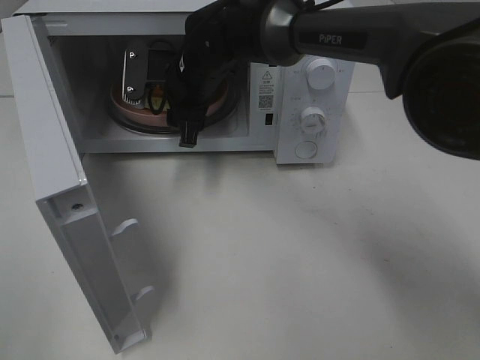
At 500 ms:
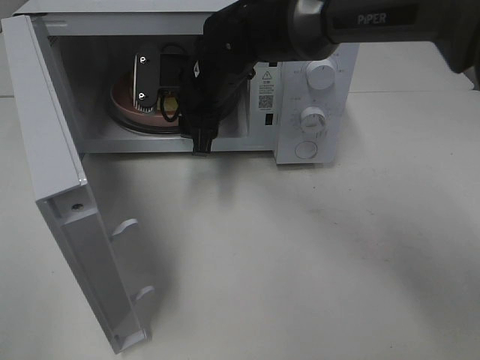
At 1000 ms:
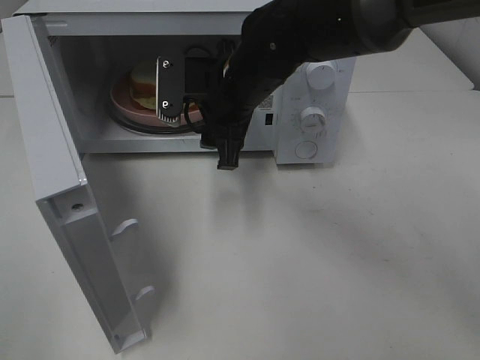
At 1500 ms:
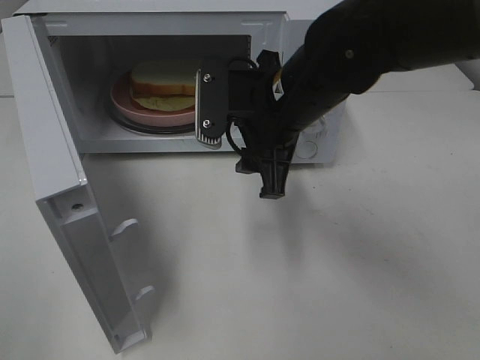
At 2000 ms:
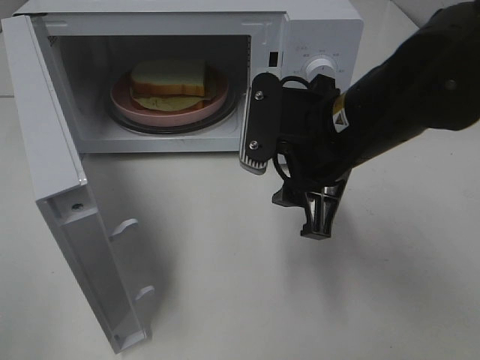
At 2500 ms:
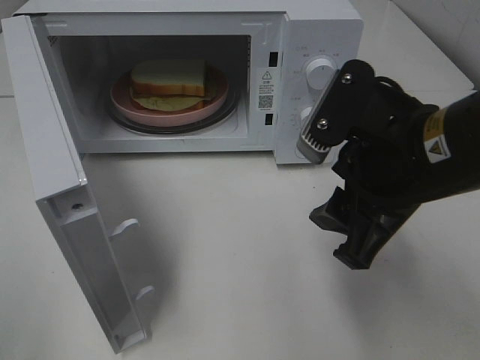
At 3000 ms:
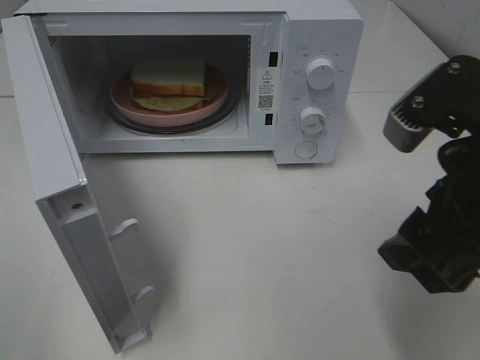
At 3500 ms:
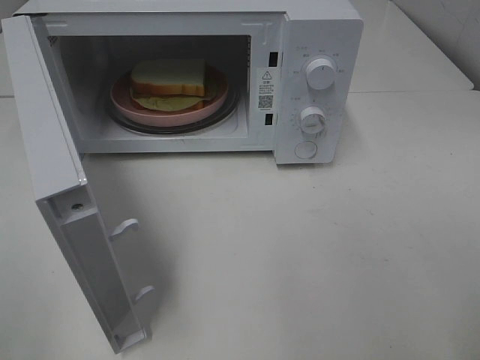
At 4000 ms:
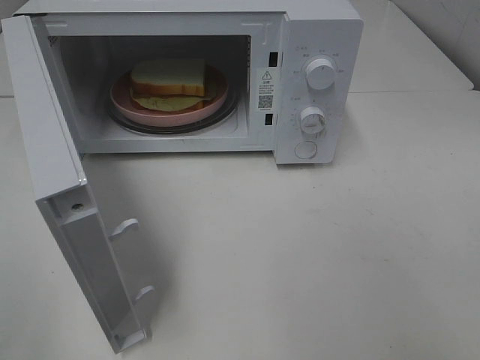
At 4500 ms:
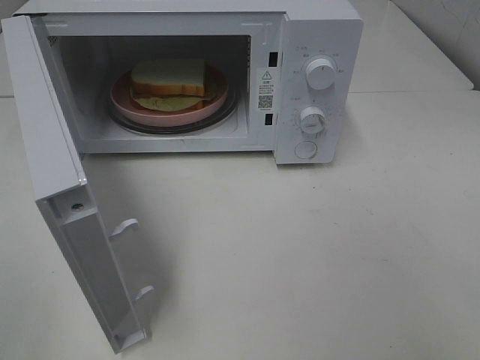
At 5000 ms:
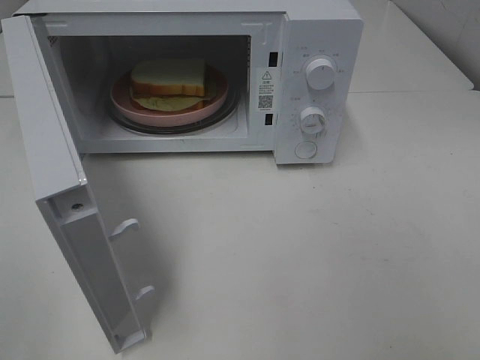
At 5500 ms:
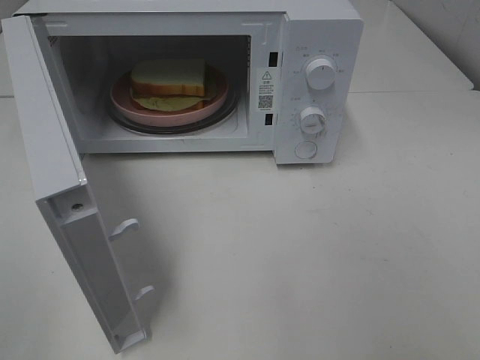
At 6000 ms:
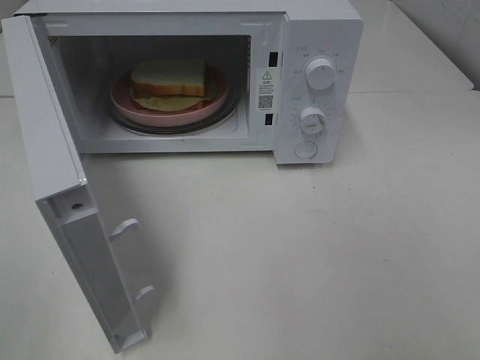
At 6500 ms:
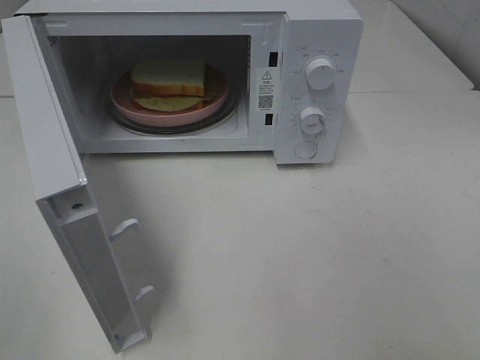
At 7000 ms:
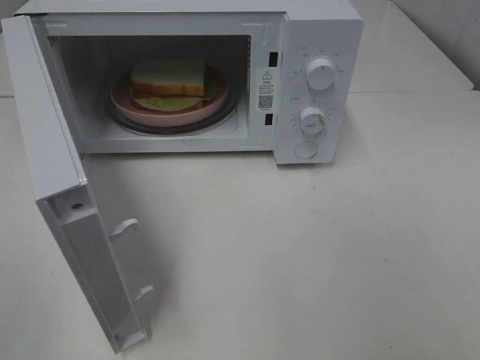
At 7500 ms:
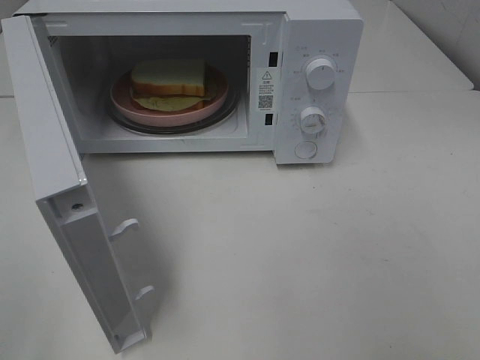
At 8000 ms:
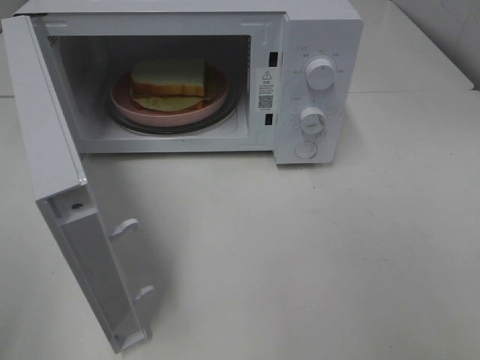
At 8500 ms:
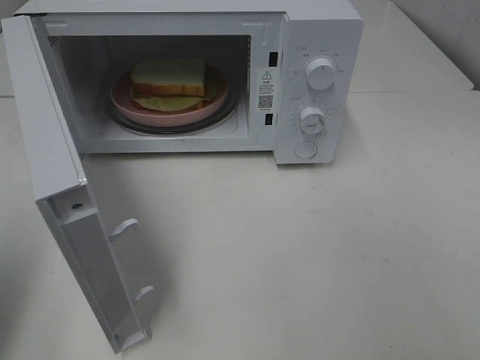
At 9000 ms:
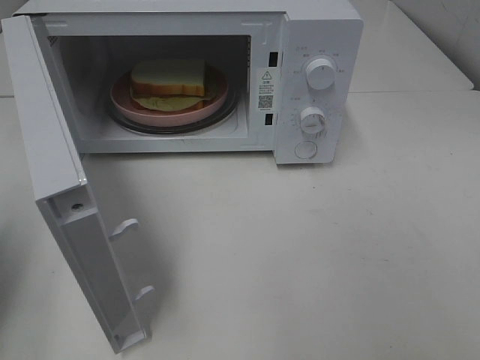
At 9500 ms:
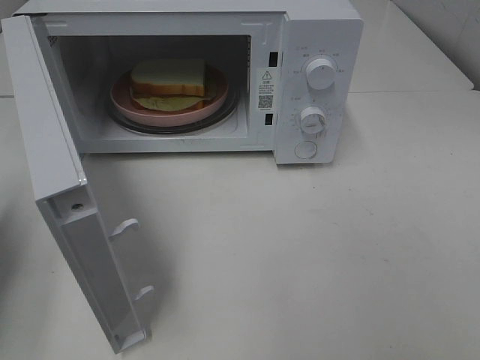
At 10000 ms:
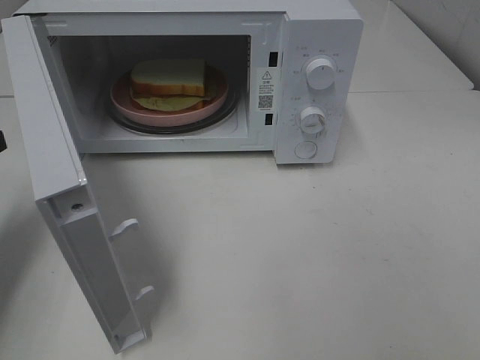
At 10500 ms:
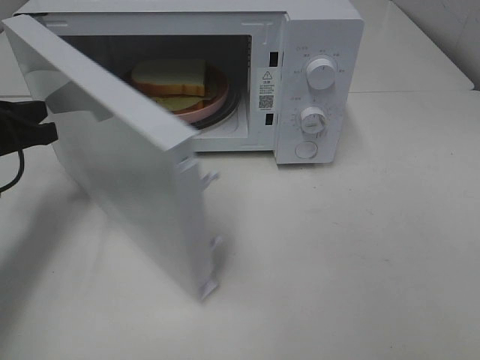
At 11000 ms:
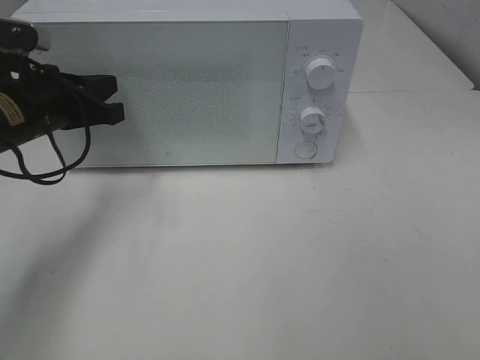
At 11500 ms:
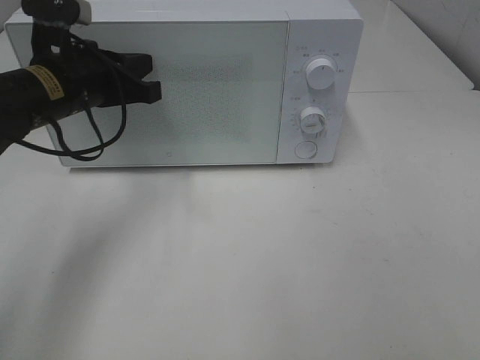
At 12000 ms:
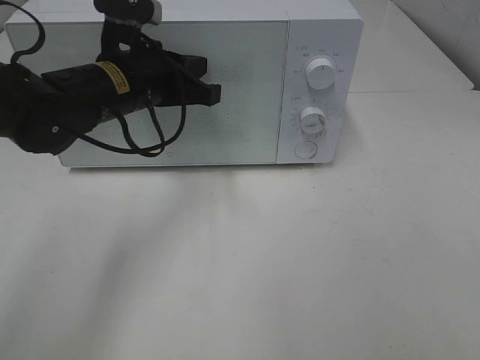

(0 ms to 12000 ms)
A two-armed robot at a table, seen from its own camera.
Task of the whole recording: Heat Sandwich.
0 ms - 2000 ms: The right gripper heads backward and to the right, covering approximately 25 cm.
2000 ms - 4000 ms: The right gripper heads backward, to the right and upward, covering roughly 30 cm.
8000 ms - 10000 ms: The left gripper moves forward and downward, approximately 25 cm, and closes up.
10000 ms - 12000 ms: The left gripper travels to the right and forward by about 25 cm.

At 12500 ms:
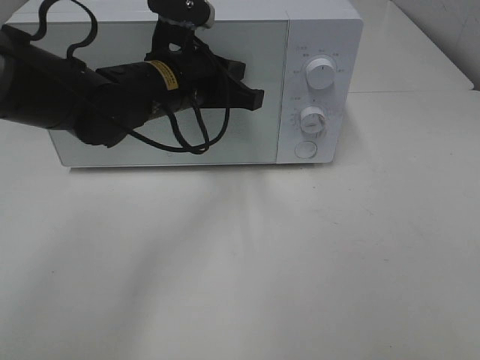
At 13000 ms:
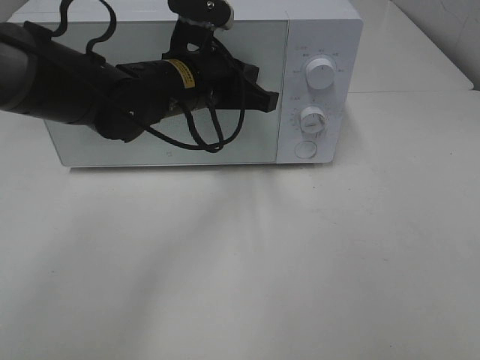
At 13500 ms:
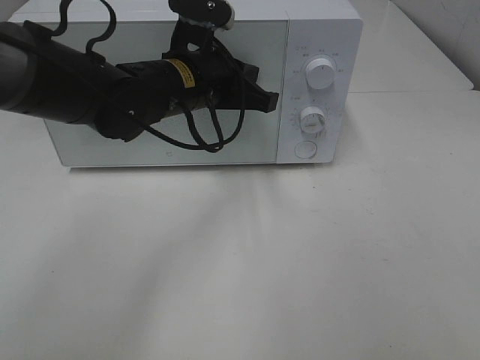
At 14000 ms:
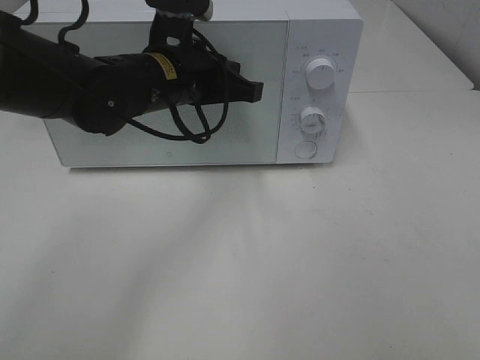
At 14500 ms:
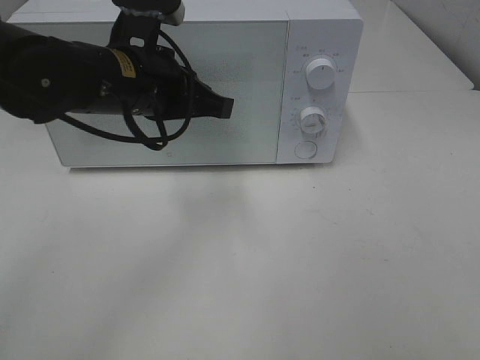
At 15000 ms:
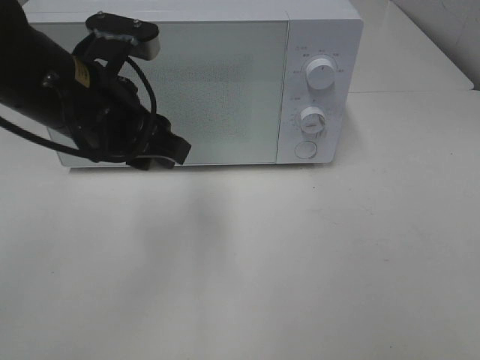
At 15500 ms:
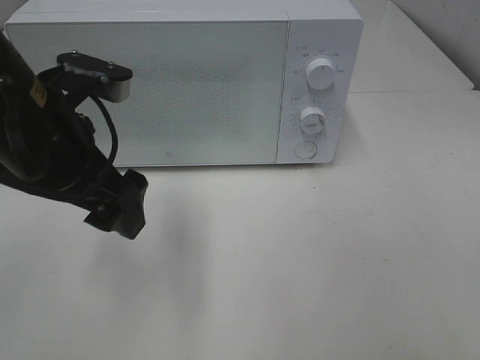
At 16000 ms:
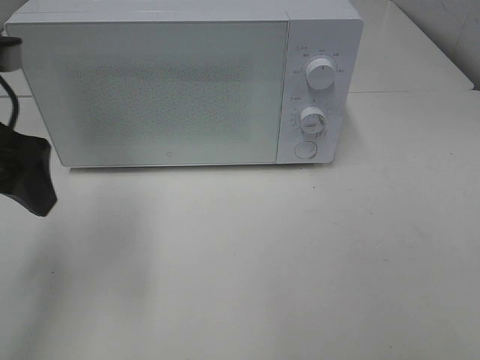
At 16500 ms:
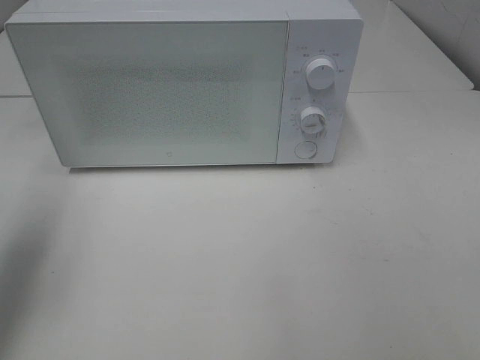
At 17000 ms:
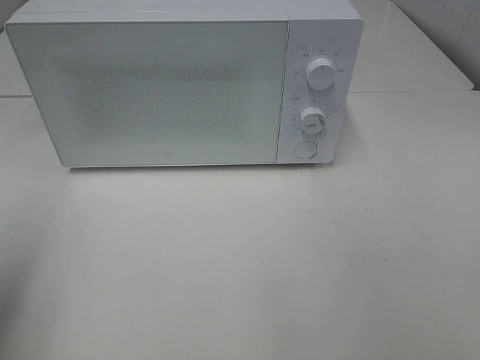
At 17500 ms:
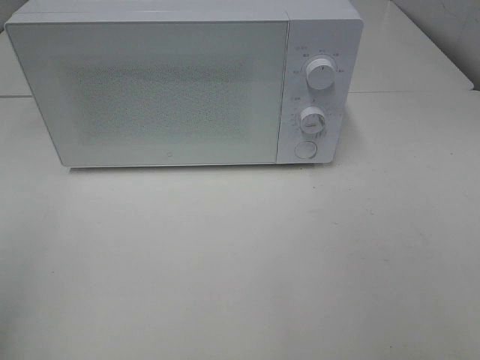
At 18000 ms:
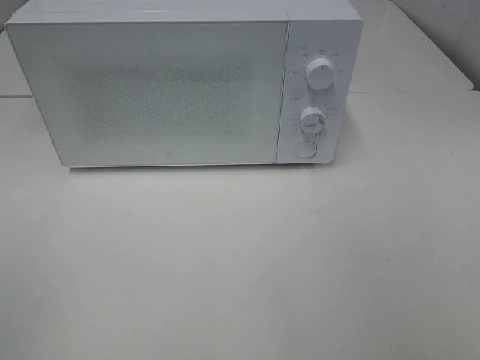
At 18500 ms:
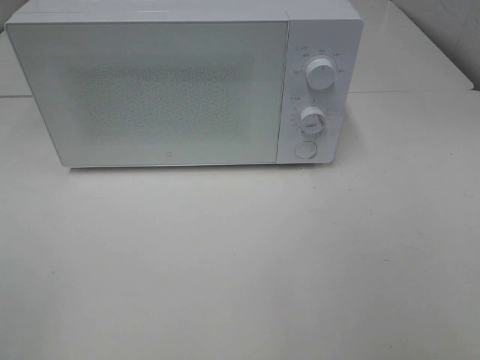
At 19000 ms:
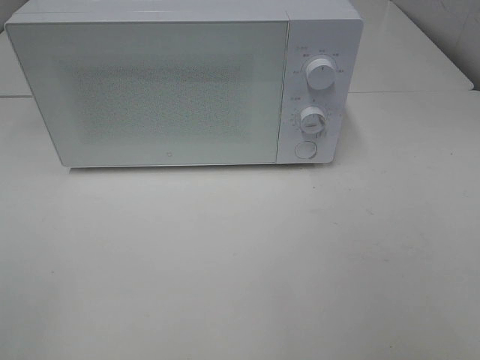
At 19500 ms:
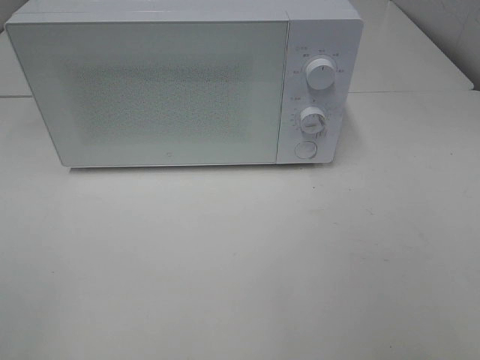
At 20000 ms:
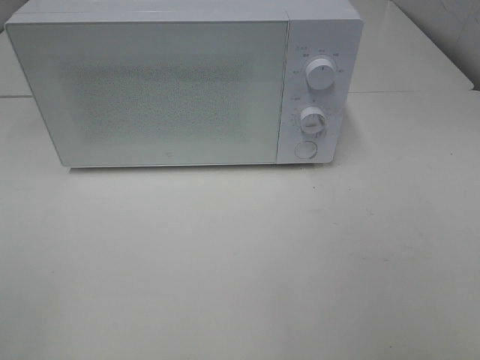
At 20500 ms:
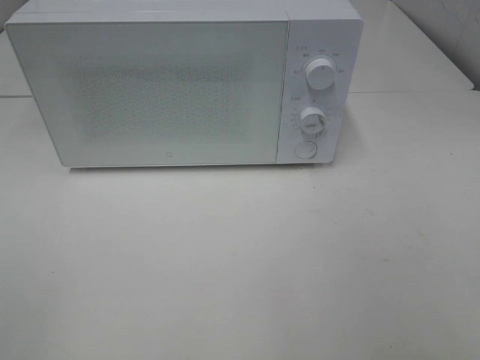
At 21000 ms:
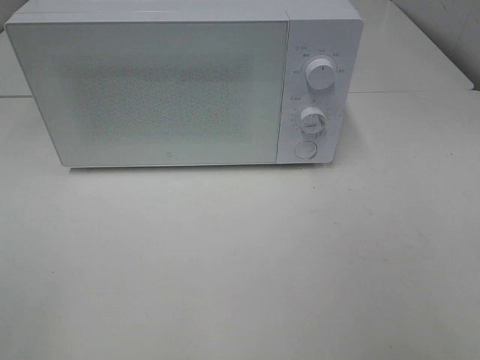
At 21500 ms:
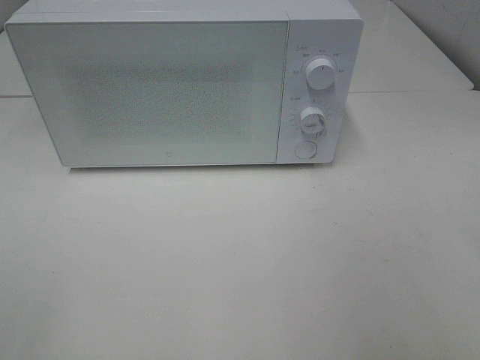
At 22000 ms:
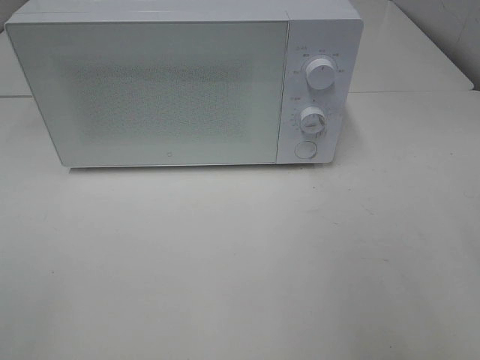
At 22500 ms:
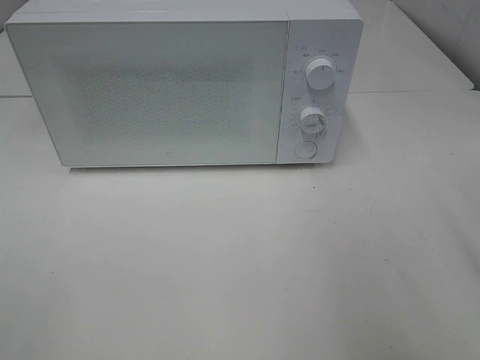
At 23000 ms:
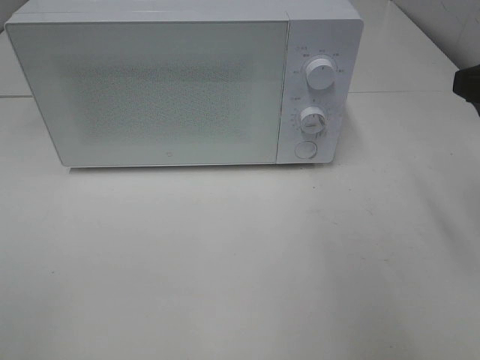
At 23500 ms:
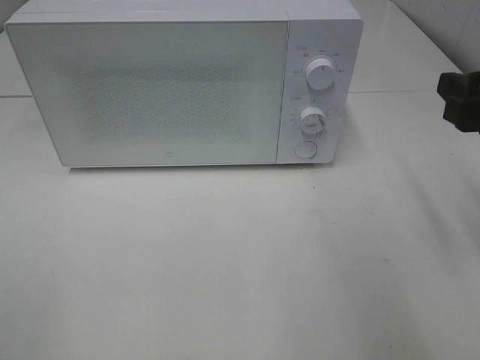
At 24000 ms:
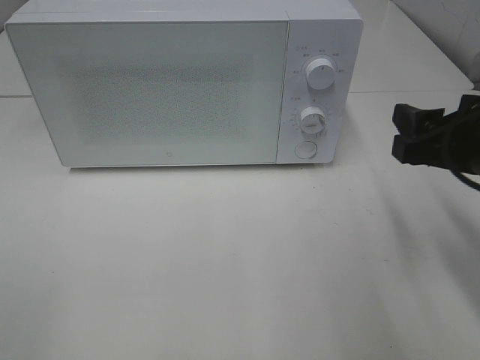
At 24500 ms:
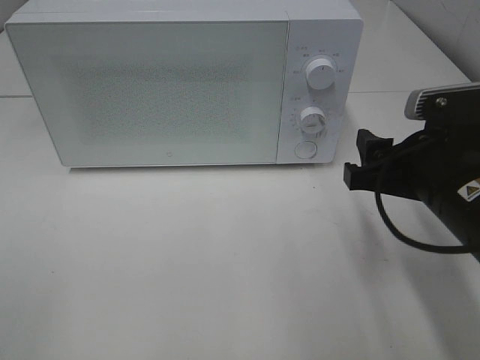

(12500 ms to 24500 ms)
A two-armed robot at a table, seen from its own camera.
Task of the whole recording: Heat Sandwich.
12500 ms - 14500 ms: The left gripper changes place by some 5 cm.
14500 ms - 16500 ms: The left gripper shifts approximately 25 cm to the left, and opens.
16500 ms - 18500 ms: The left gripper goes some 25 cm backward.
18500 ms - 20500 ms: Both grippers stay about where they are.
22500 ms - 24500 ms: The right gripper is displaced downward and to the left by about 15 cm.

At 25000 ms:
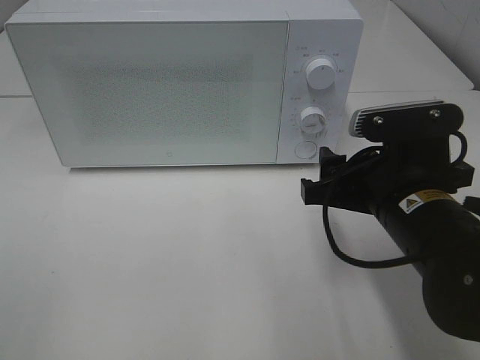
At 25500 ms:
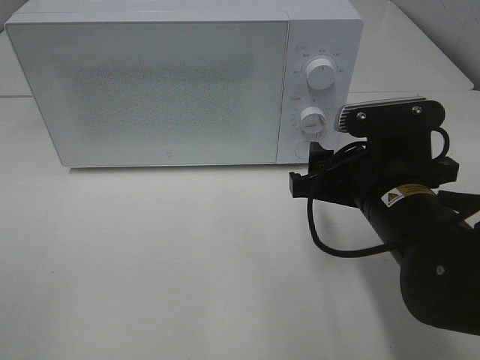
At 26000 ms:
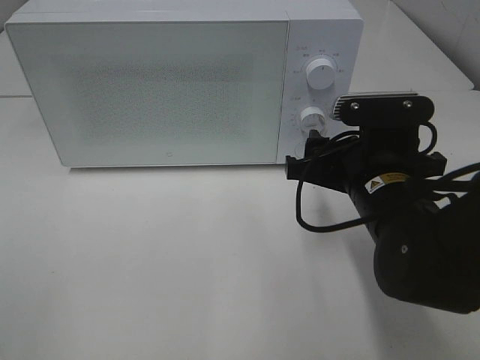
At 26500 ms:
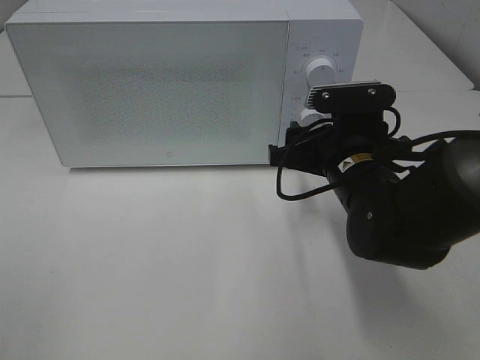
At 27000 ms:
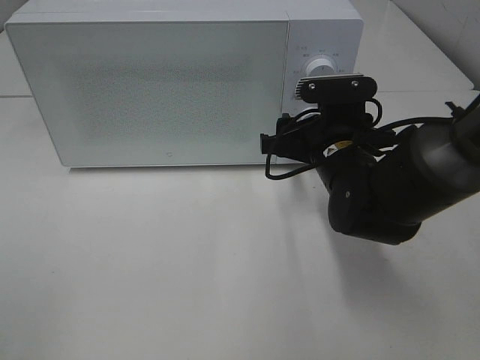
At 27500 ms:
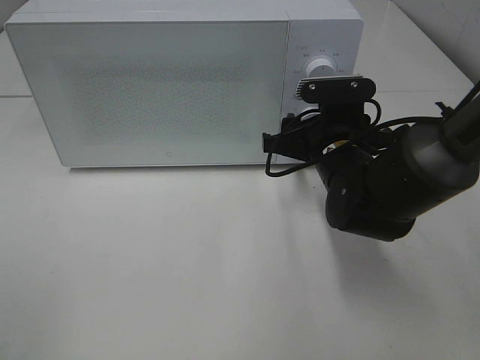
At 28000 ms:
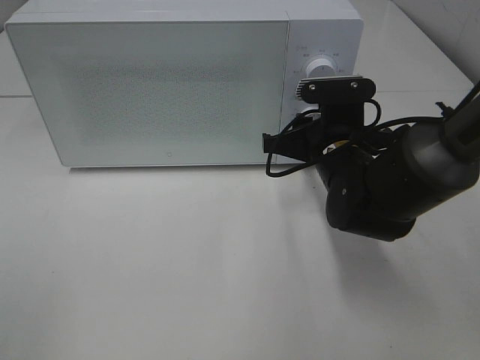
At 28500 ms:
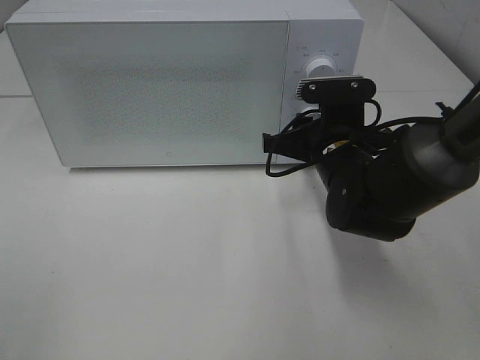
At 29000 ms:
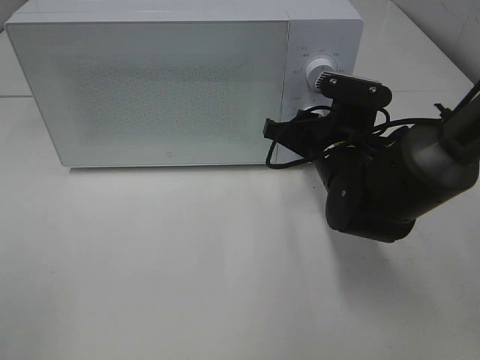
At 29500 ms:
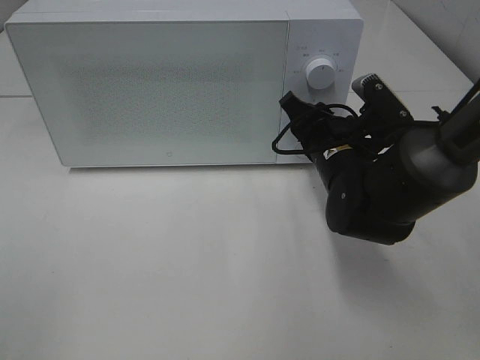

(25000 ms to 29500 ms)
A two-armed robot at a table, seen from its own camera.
Task of the whole recording: Heat Sandwich.
25000 ms - 27000 ms: The right gripper travels forward by some 10 cm.
27000 ms - 29500 ms: The right gripper closes.
